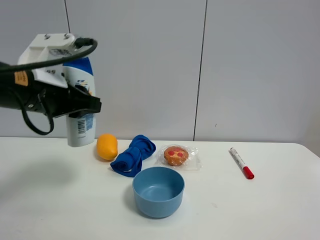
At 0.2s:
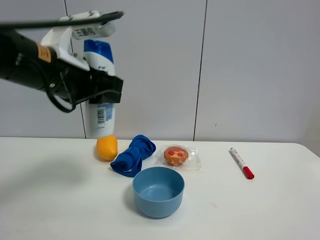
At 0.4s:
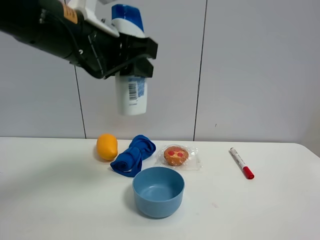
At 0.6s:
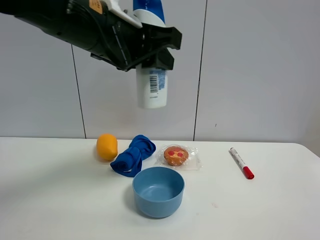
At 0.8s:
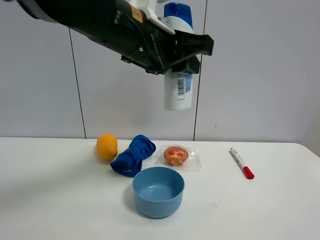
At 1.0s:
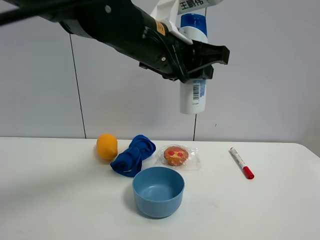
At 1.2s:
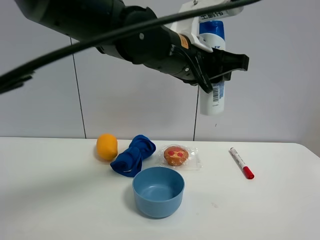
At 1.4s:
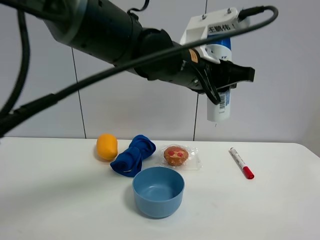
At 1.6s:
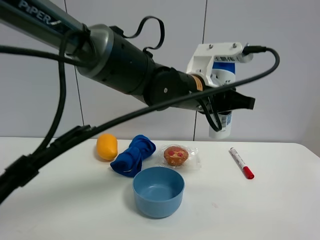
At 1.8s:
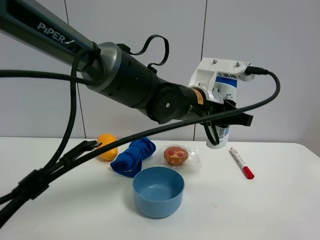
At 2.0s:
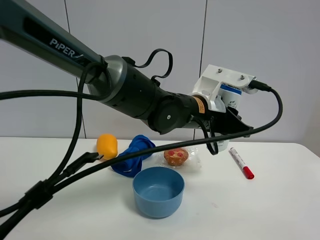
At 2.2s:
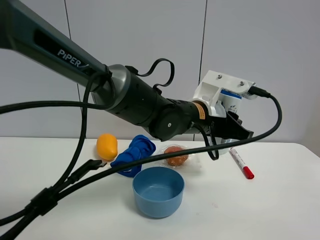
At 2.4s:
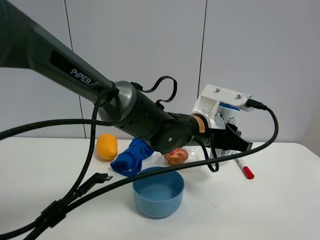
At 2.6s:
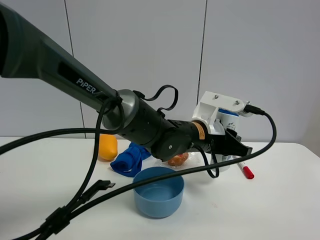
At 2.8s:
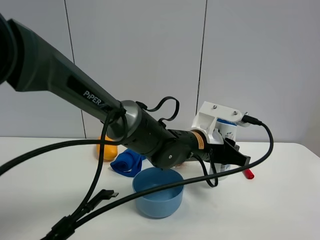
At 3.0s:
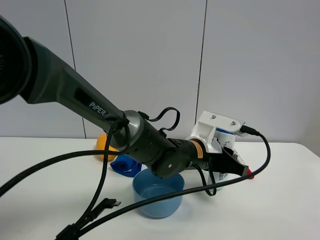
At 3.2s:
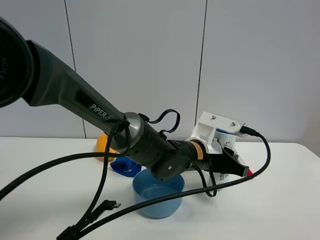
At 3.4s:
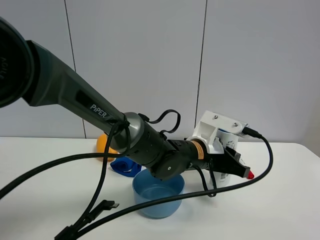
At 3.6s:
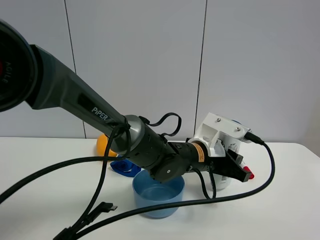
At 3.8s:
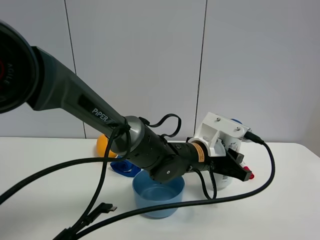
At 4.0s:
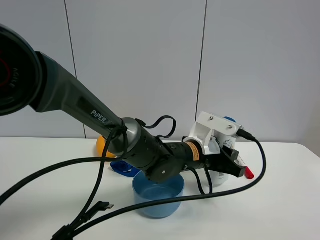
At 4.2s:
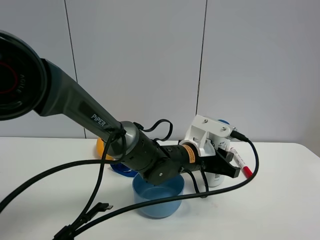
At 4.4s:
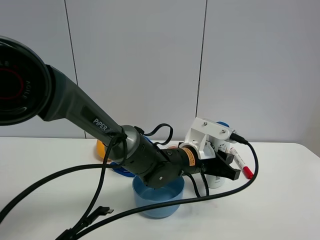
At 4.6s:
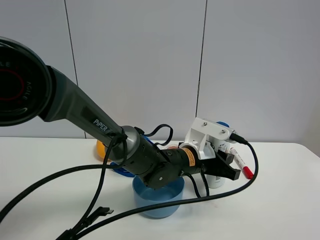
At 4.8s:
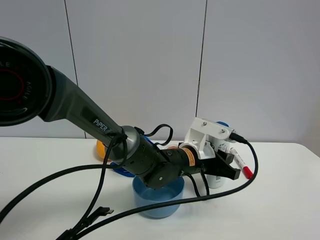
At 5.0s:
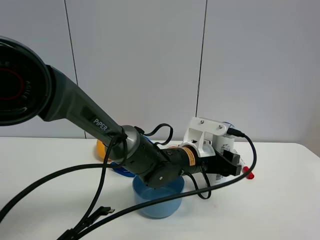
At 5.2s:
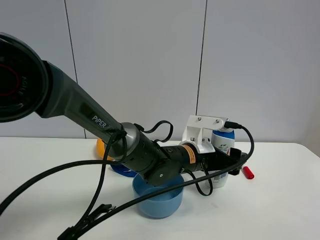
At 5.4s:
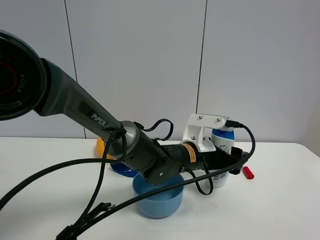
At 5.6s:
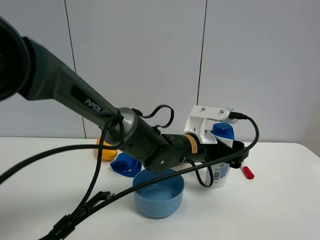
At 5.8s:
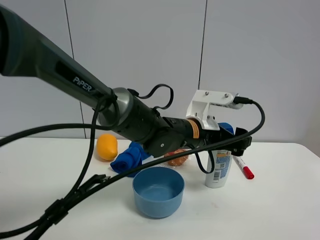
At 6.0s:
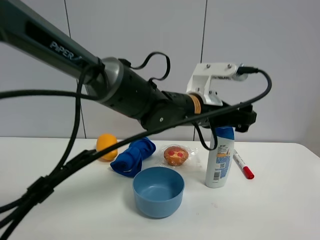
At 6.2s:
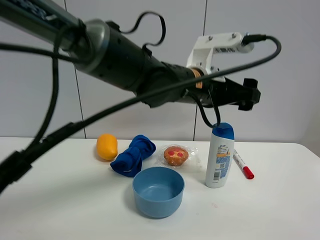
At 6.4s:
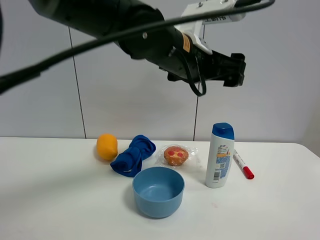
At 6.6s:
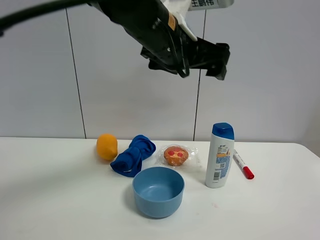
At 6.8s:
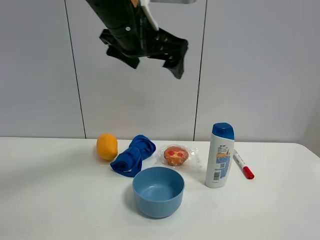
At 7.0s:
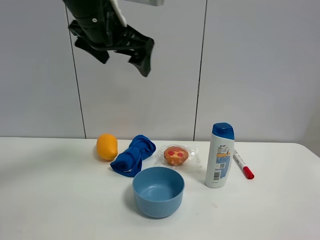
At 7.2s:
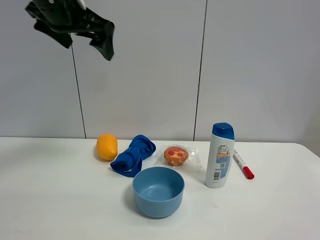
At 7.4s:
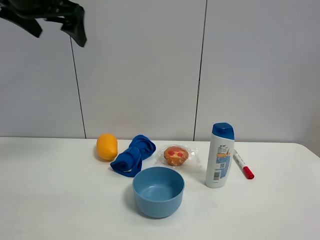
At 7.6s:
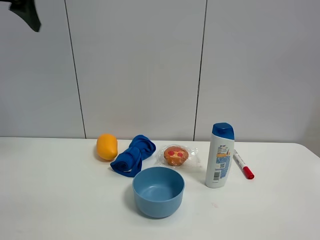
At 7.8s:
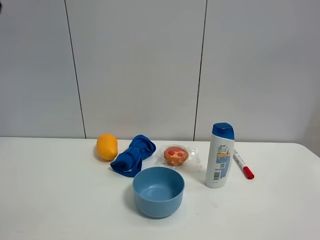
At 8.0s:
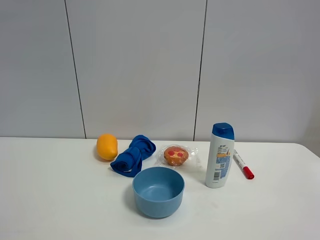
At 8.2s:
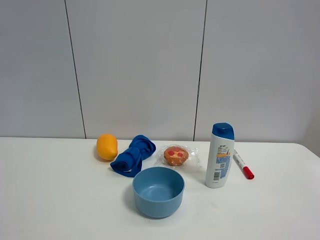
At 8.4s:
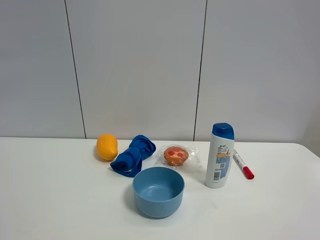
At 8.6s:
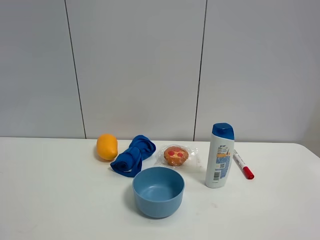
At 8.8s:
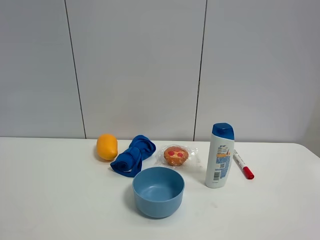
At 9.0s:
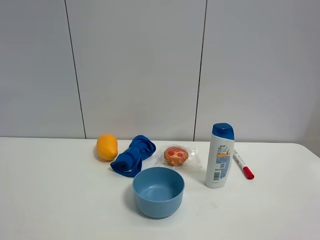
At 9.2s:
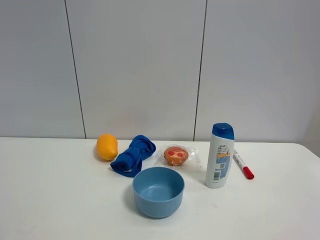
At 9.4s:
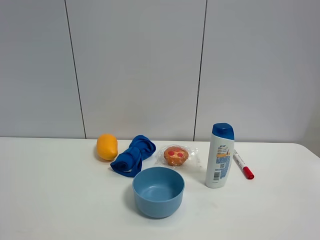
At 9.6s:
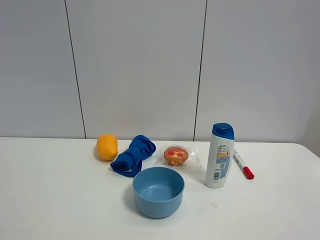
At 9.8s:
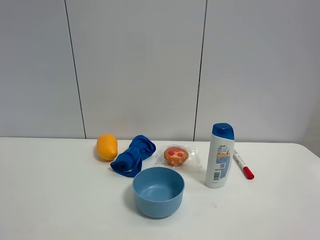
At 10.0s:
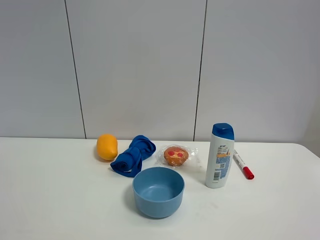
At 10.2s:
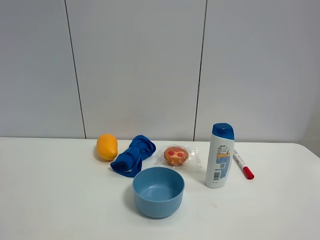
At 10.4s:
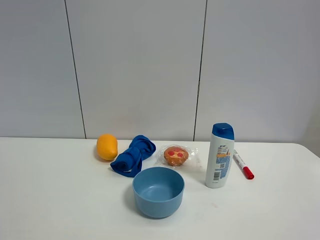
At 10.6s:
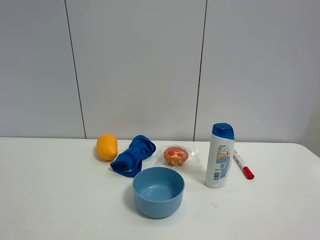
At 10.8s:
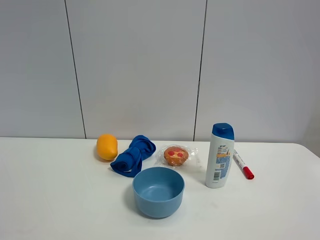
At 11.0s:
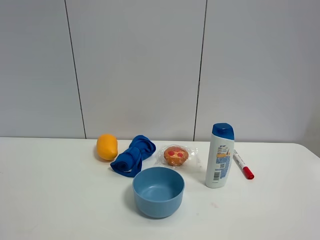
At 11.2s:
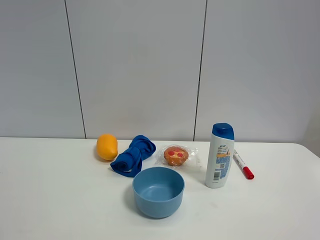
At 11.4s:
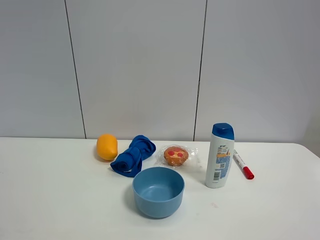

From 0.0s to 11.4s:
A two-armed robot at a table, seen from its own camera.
Task of the whole recording: the gripper move the object.
Step, from 0.0s to 6.2s: Place the shampoo on the table with the left gripper.
From 0.0s to 1.4s: The left gripper shifts about 25 cm to the right.
From 1.4s to 2.8s: The left gripper moves downward, approximately 15 cm.
From 4.2s to 5.6s: The left gripper opens up.
From 5.6s to 7.2s: The left gripper shifts roughly 35 cm upward and to the left.
From 7.2s to 8.6s: The left gripper moves backward and to the left, approximately 30 cm.
From 10.0s to 11.4s: Neither gripper changes place.

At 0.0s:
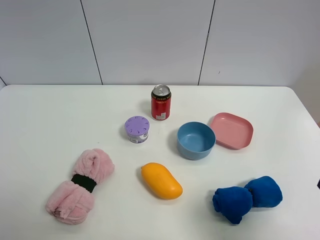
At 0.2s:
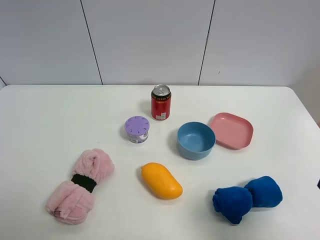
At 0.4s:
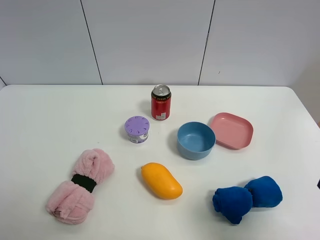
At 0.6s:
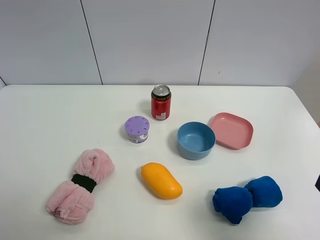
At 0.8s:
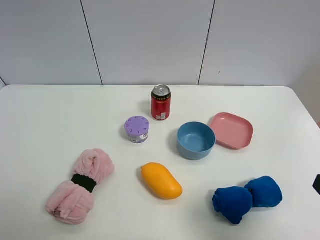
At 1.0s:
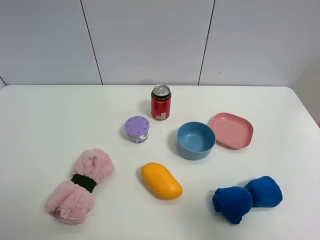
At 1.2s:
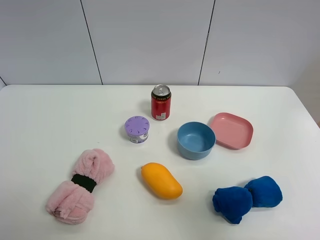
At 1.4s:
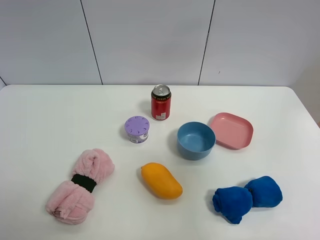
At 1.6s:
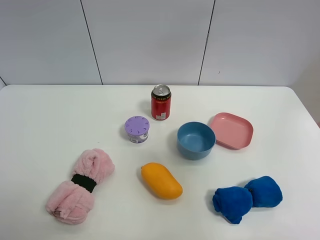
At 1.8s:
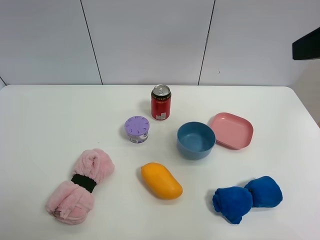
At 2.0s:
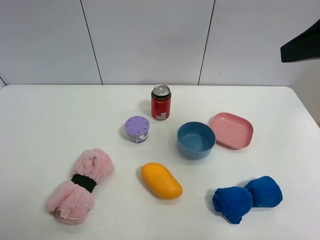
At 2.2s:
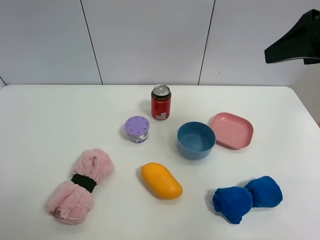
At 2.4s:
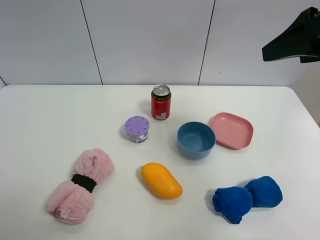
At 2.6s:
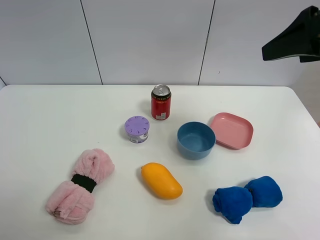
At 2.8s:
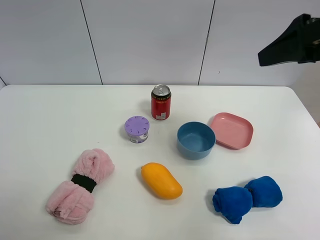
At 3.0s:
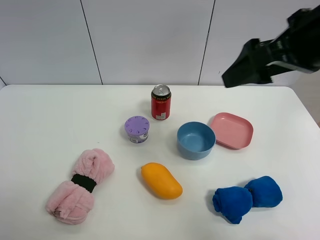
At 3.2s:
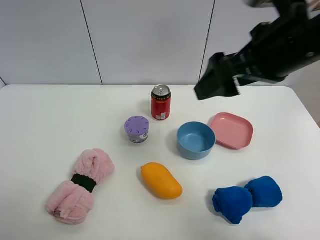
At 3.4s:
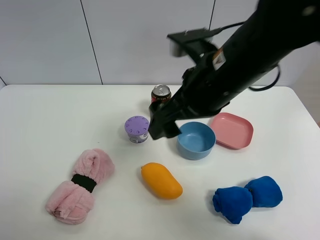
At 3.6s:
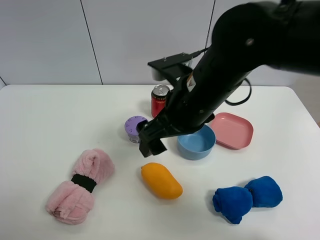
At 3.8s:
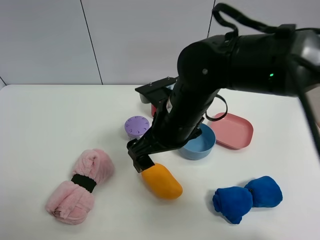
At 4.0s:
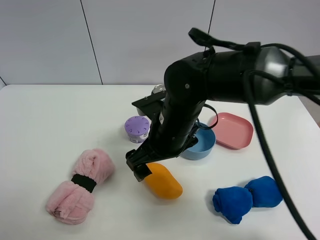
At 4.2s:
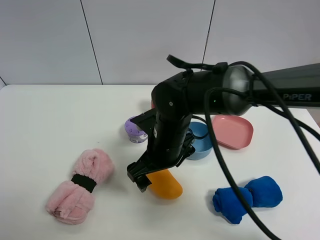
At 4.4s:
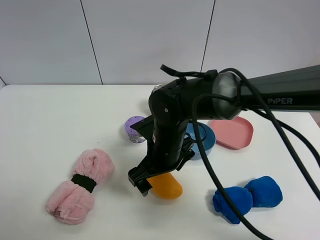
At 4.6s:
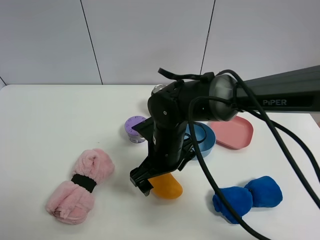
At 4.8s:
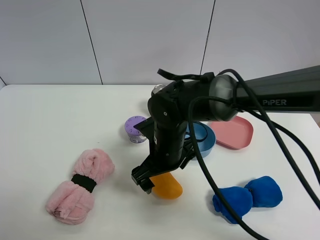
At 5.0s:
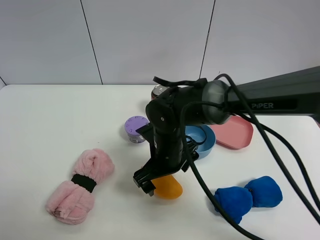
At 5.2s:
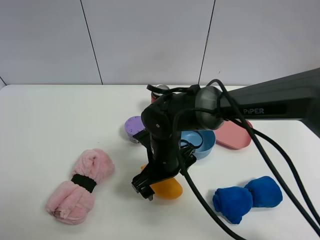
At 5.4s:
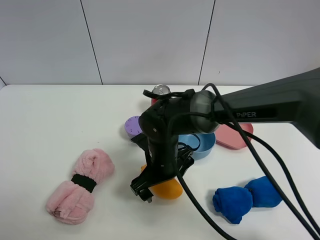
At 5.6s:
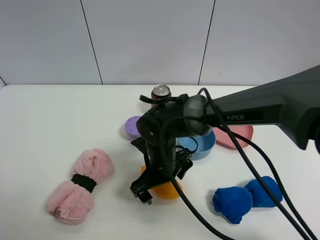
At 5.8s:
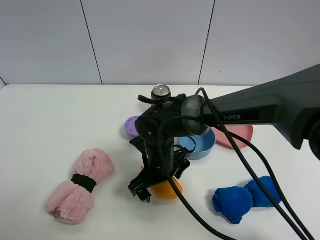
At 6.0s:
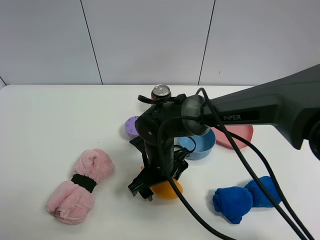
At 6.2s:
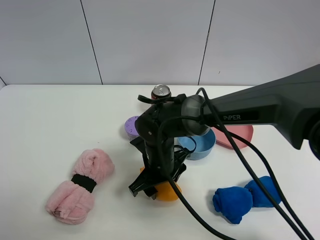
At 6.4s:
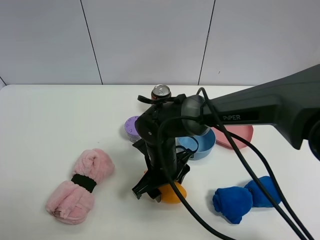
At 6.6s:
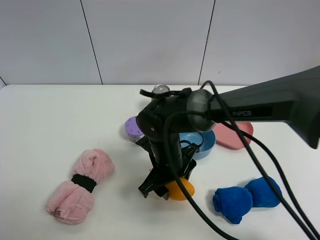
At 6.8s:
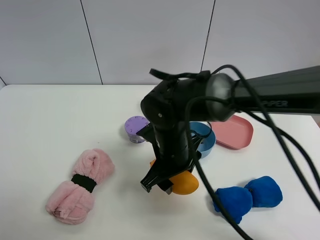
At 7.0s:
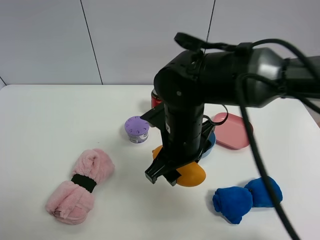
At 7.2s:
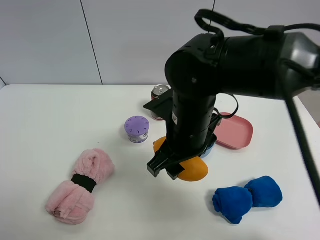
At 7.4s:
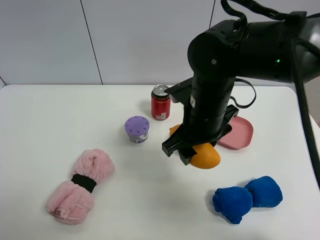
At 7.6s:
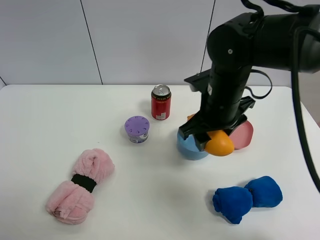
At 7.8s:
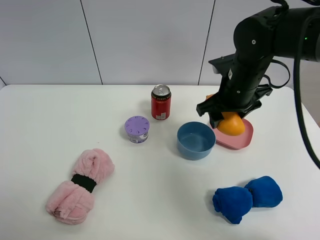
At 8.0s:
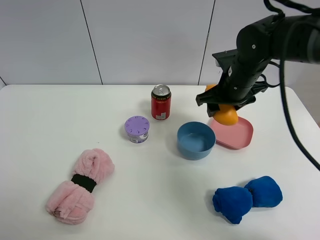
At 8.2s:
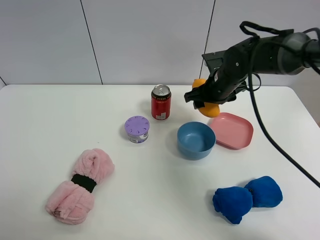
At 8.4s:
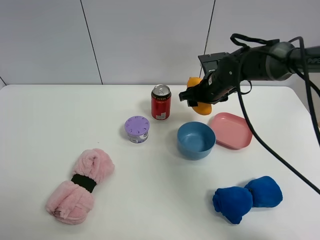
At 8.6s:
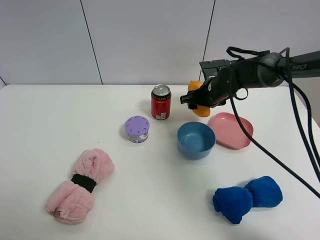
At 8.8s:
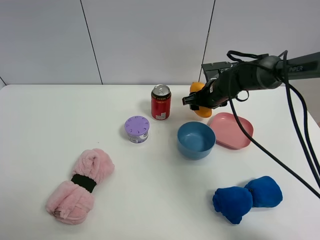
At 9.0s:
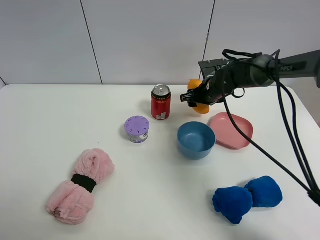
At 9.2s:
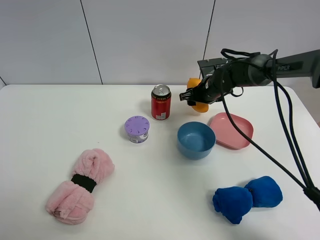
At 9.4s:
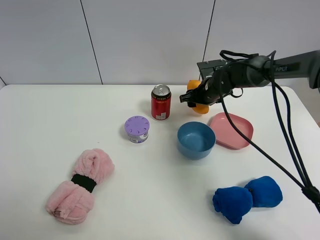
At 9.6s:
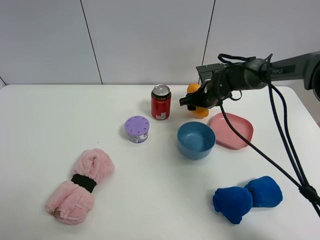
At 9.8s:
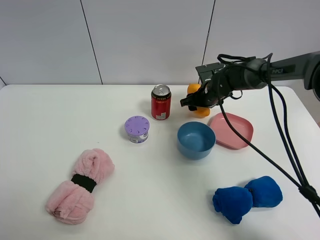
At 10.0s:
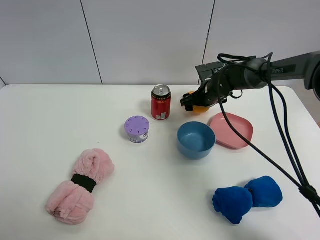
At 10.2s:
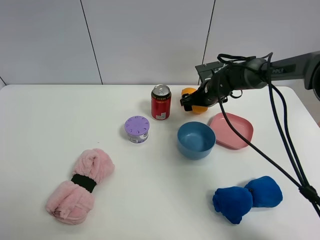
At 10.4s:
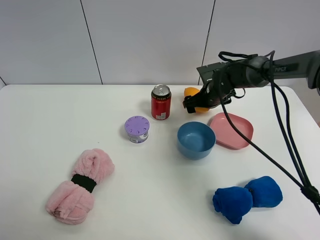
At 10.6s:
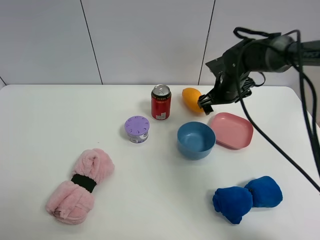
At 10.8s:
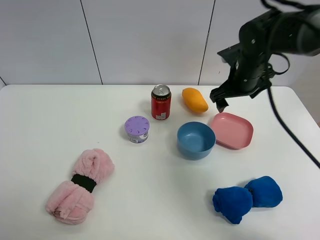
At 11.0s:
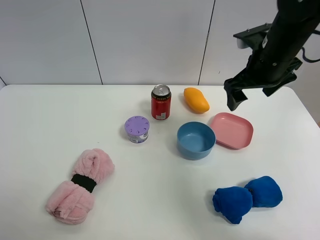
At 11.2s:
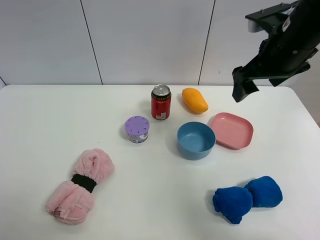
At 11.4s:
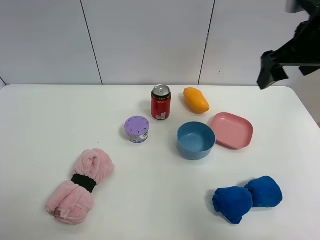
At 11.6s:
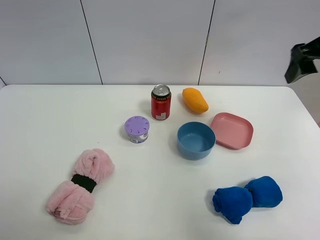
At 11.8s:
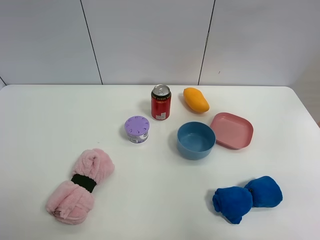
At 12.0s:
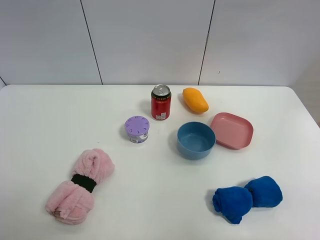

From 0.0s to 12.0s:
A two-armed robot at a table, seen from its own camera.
Task of the whole recording: the gripper move the object.
Step, from 0.0s to 6.0s: Grasp the mango with the right gripper.
Step, from 6.2s to 10.4s: Place the mango on the table with the right gripper.
From 0.0s to 1.6s: The right gripper shifts roughly 20 cm upward and forward.
From 1.6s to 3.0s: The right gripper moves forward, to the left and downward, about 15 cm.
From 3.0s to 4.4s: The right gripper moves downward and to the left, approximately 30 cm.
From 4.4s to 6.0s: The right gripper closes up.
From 6.0s to 7.6s: The right gripper moves upward and to the right, roughly 20 cm.
From 7.6s to 9.0s: The right gripper goes some 20 cm forward and downward.
From 9.0s to 10.4s: The right gripper opens.
From 10.4s to 12.0s: The right gripper is displaced upward, backward and to the right by approximately 40 cm.
